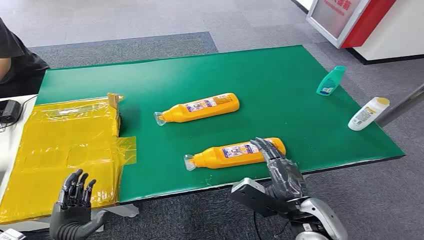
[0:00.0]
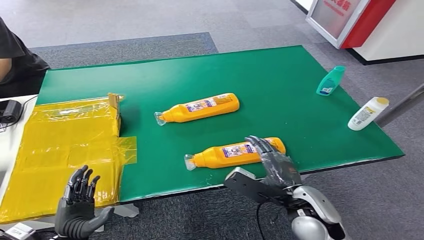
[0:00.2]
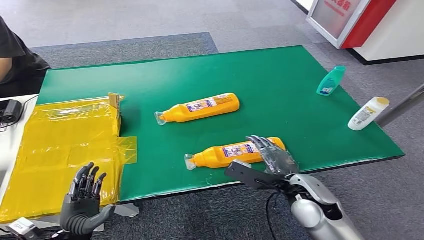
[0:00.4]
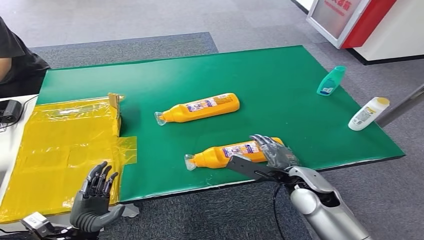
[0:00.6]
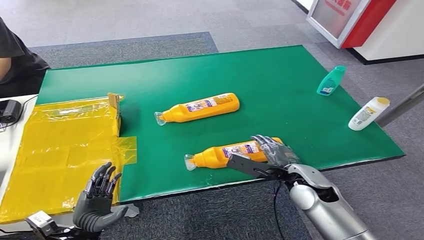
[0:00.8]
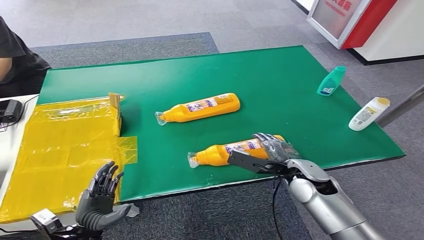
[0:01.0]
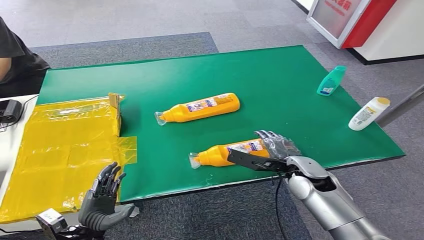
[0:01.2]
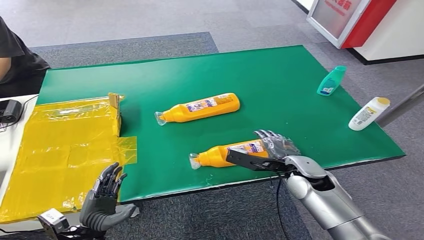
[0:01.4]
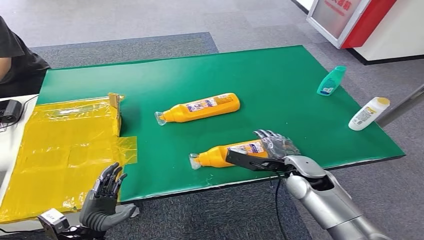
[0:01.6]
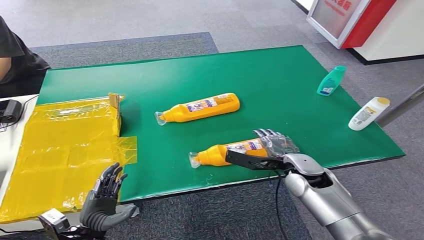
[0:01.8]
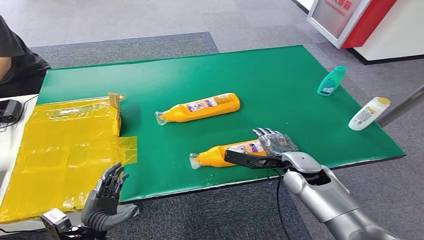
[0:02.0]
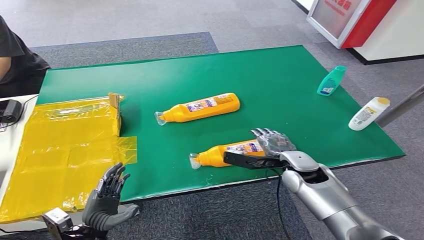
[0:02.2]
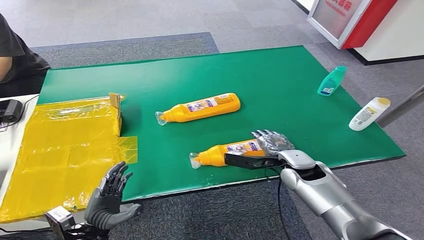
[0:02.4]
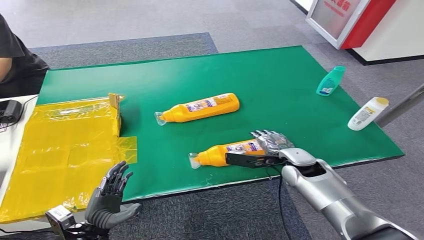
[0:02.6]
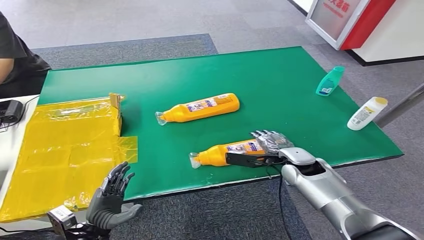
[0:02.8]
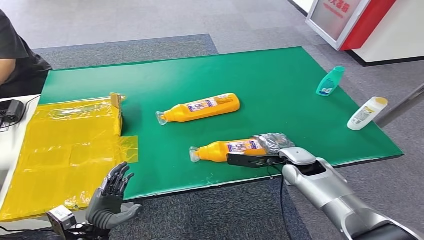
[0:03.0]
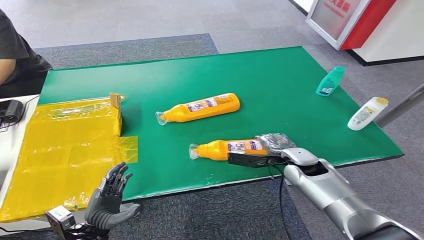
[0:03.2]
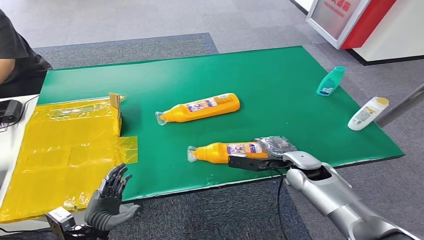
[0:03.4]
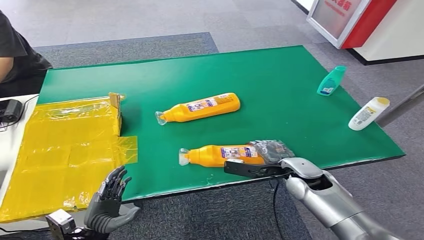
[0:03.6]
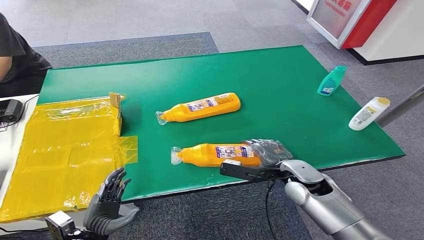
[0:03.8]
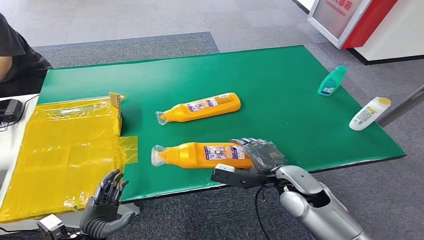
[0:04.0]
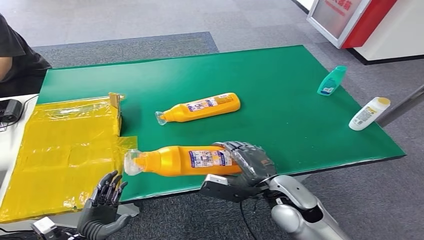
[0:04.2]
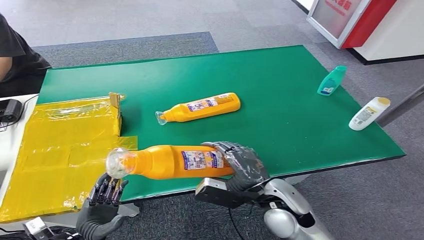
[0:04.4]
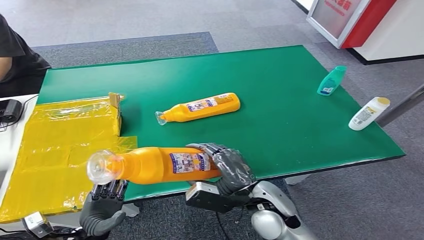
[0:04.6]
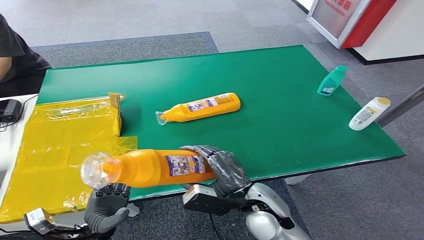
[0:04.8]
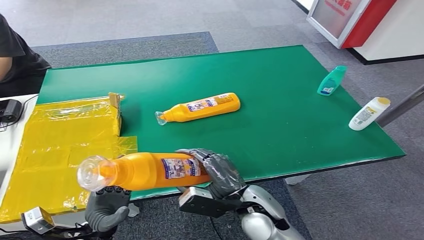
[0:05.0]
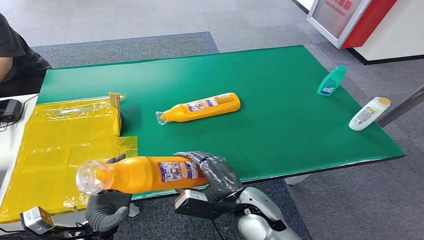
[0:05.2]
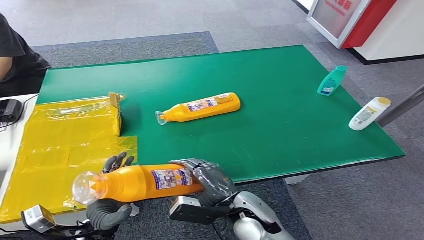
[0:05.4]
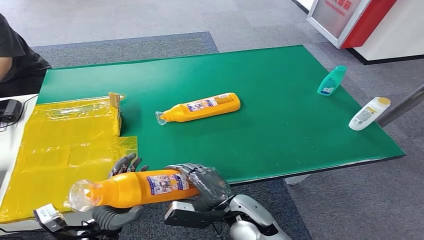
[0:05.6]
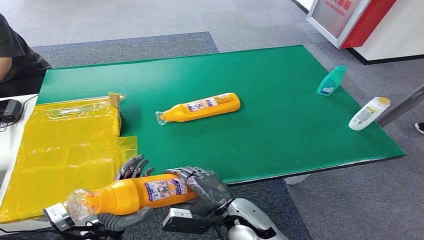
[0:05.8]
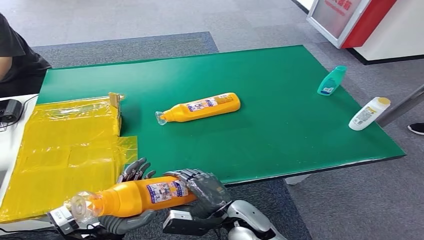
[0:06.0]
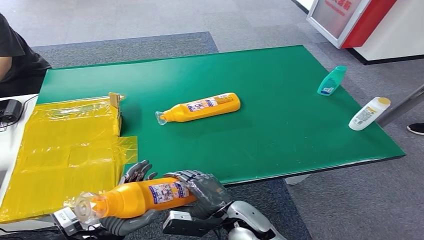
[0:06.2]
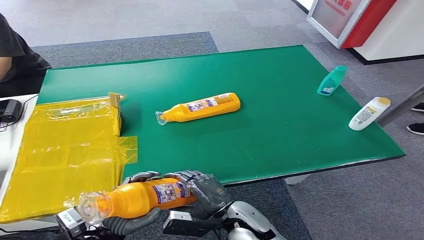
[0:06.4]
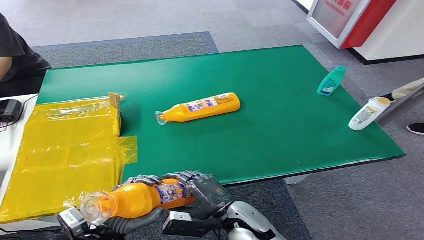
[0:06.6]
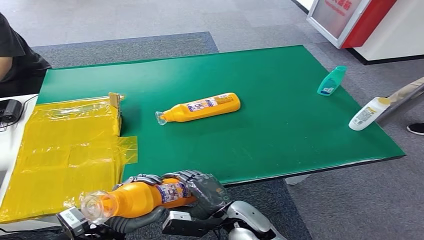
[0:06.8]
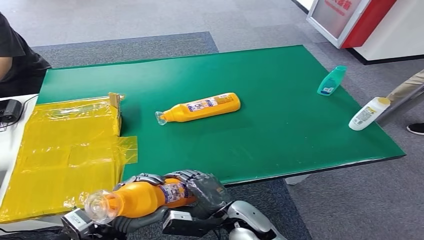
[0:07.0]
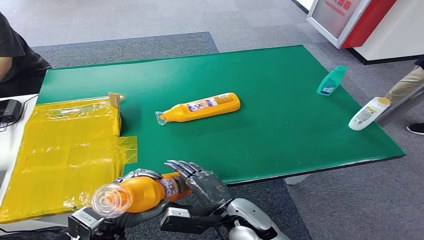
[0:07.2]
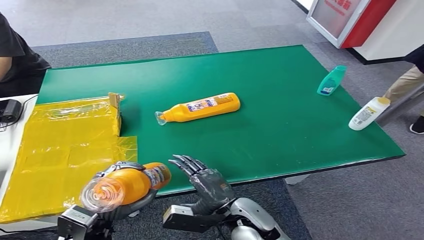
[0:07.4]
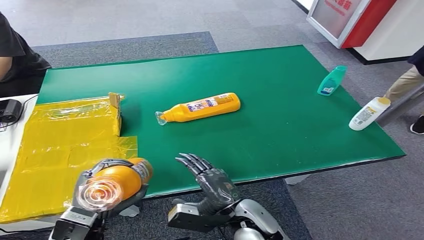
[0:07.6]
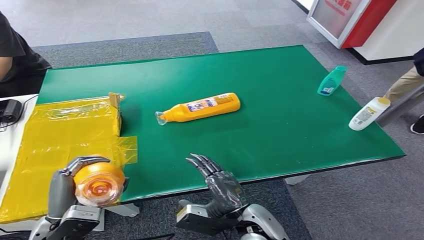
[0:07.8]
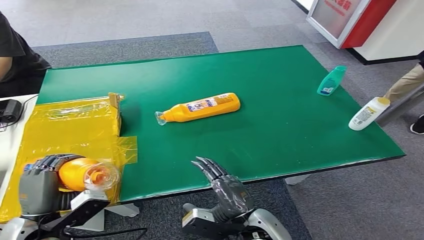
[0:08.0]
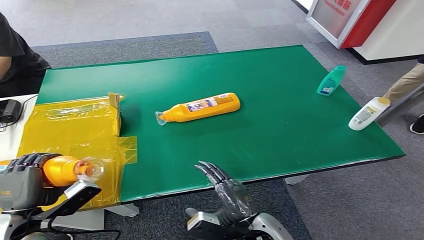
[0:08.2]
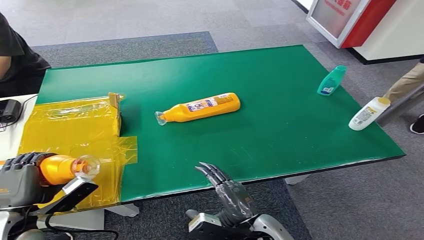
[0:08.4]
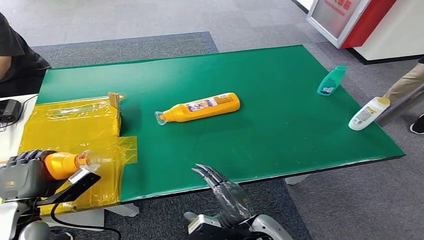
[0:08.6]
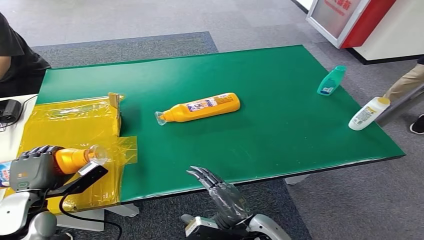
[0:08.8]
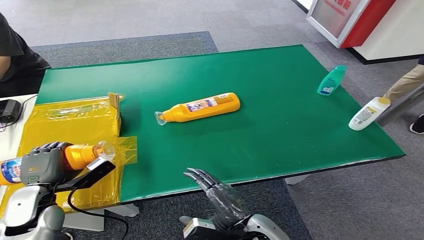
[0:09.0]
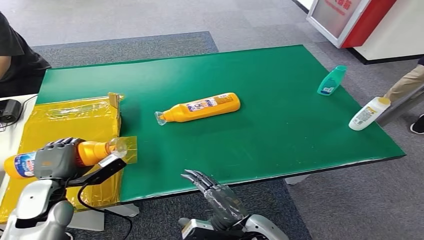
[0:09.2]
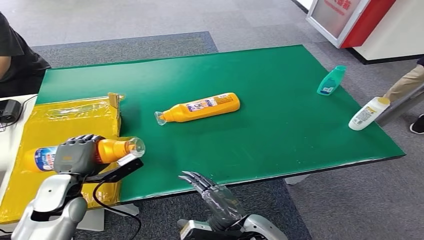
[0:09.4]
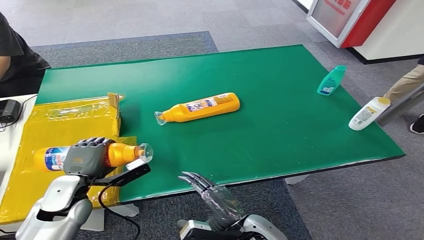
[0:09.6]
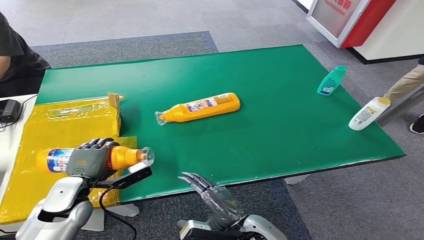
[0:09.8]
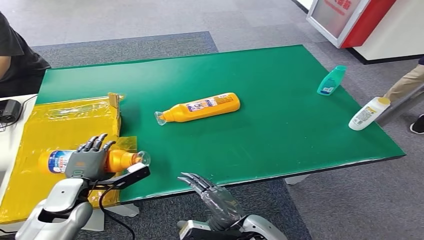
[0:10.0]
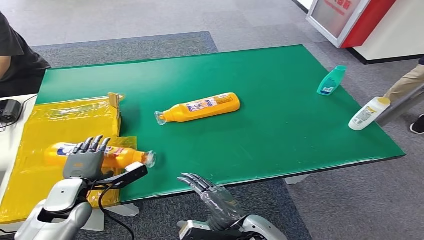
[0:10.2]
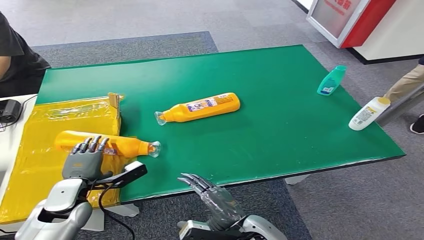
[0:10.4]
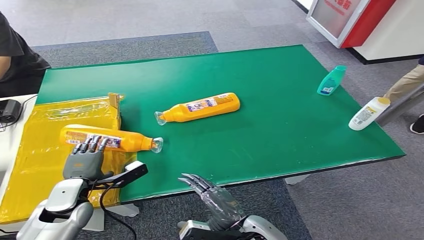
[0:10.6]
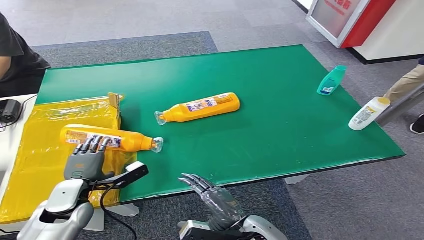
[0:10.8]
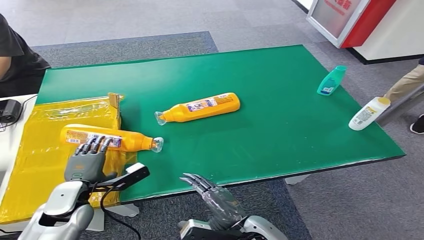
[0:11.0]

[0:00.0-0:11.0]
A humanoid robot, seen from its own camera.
Step, 0:00.0 to 0:04.0: Pick up the bottle from the table.
Step, 0:04.2 to 0:11.0: Turn the bottle to the front side.
0:01.6 to 0:03.2: The hands make only small movements.
0:04.8 to 0:06.2: The right hand moves downward, approximately 5 cm.
0:06.2 to 0:07.8: The left hand moves upward, some 5 cm.
0:07.8 to 0:09.4: The left hand is displaced forward by some 10 cm.
0:09.4 to 0:11.0: The hands make only small movements.

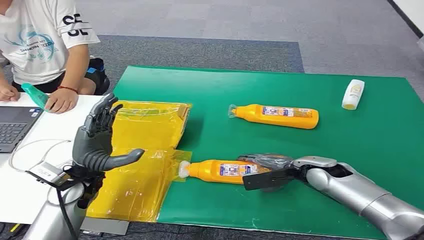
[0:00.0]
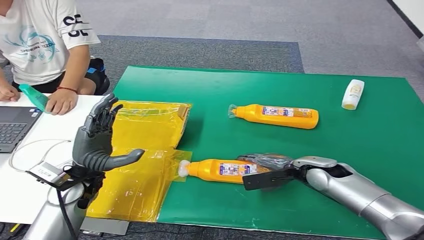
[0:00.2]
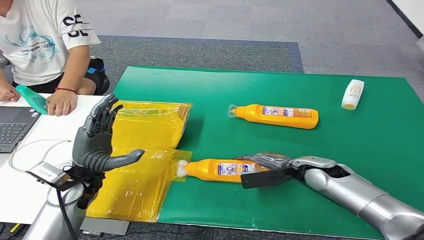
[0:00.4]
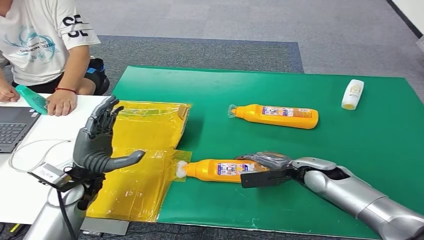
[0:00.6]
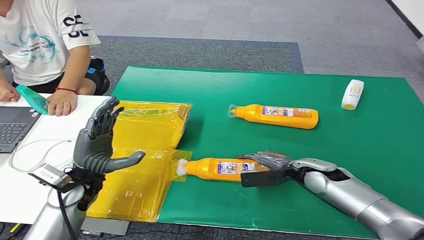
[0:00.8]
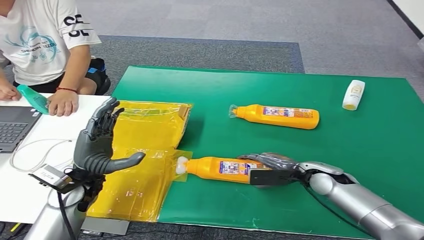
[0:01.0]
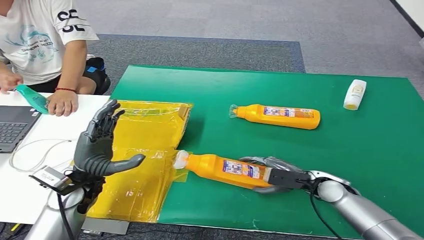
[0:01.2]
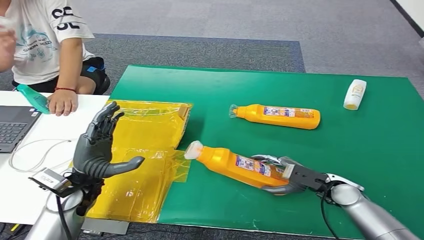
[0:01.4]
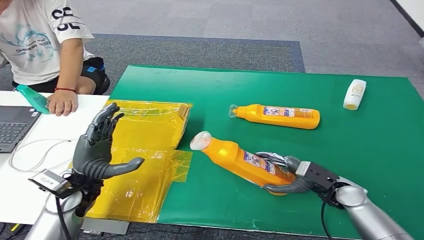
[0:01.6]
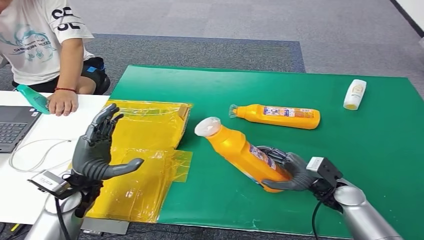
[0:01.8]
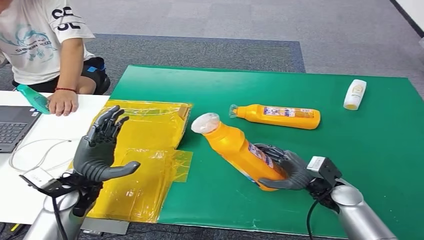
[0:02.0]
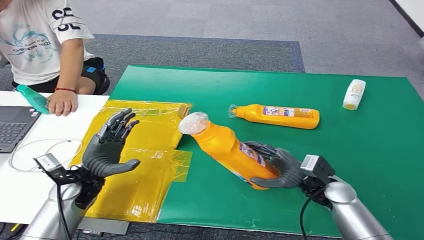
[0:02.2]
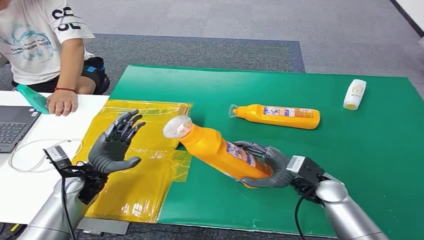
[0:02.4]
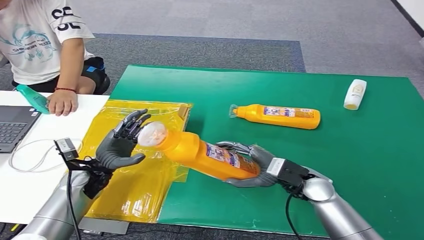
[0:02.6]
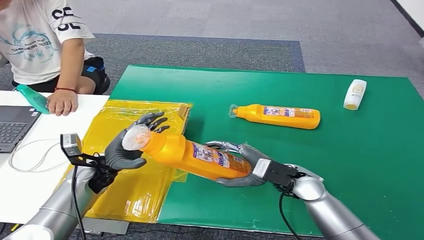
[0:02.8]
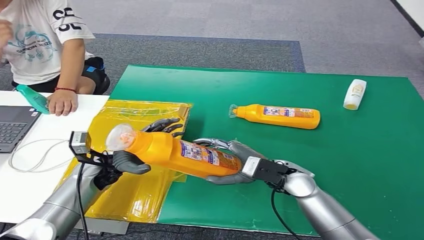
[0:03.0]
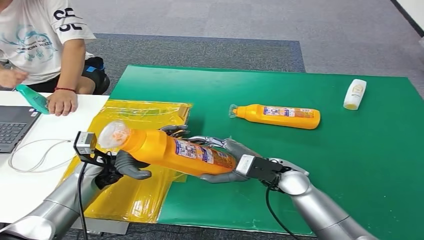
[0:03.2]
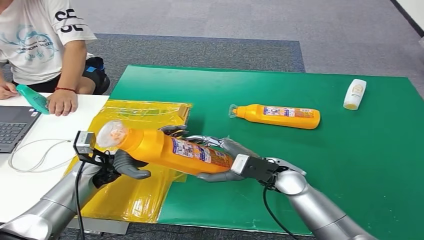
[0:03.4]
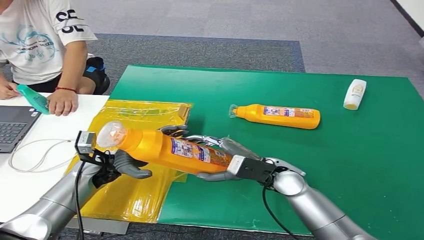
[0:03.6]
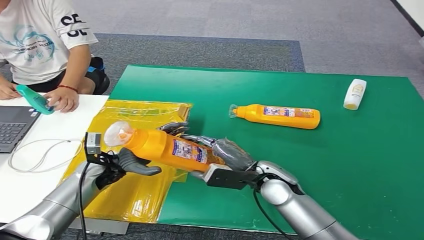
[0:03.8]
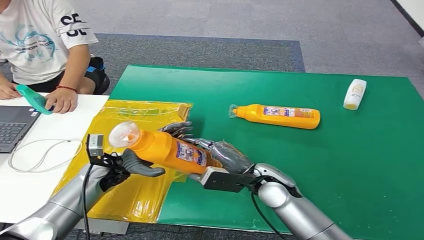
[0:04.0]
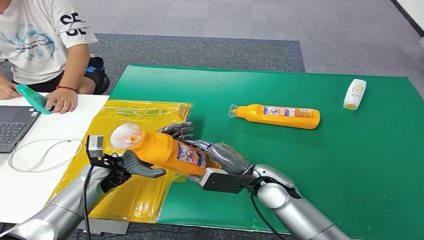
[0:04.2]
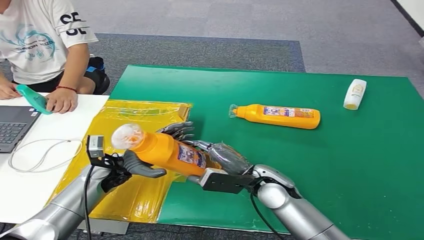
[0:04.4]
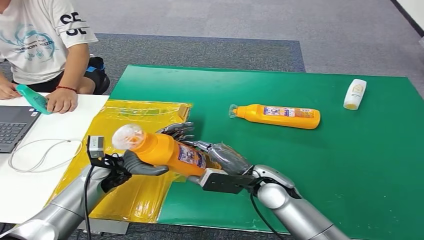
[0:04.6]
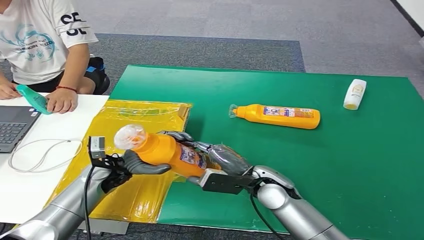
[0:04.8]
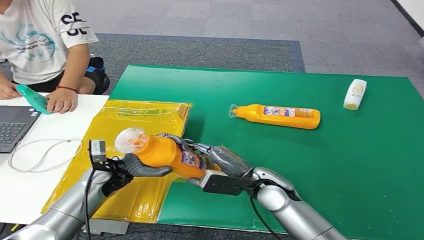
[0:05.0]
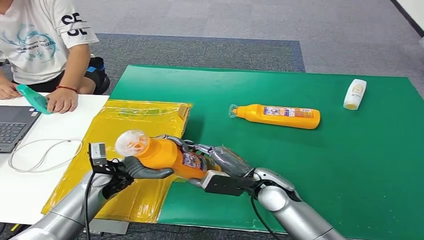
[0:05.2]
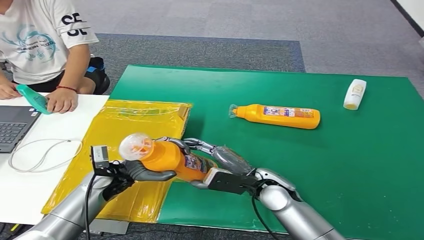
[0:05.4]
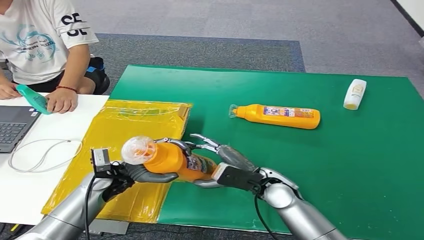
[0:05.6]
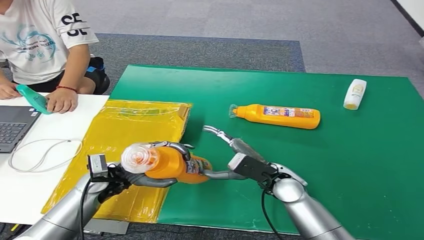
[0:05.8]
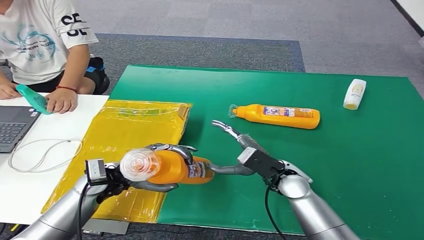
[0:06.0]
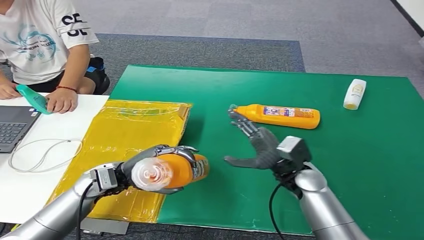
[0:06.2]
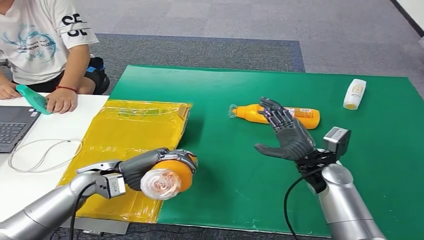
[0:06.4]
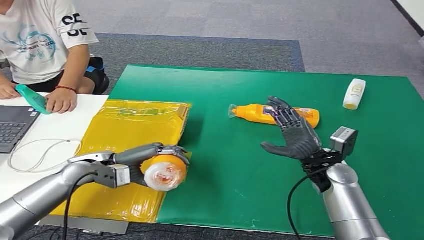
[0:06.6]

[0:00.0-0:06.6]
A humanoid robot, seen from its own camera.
Step, 0:00.0 to 0:02.4: Pick up the bottle from the table.
0:01.6 to 0:03.2: The left hand shifts some 5 cm forward; the right hand goes some 15 cm to the left and upward.
